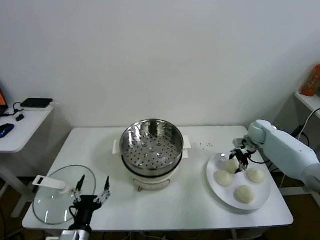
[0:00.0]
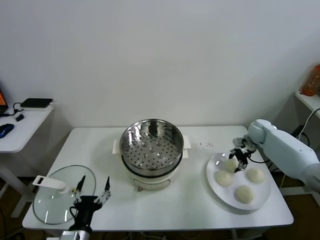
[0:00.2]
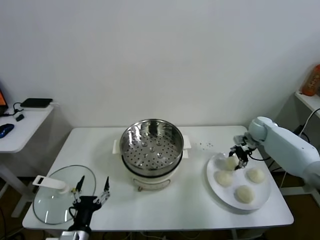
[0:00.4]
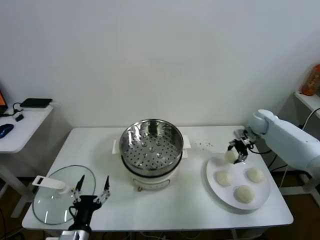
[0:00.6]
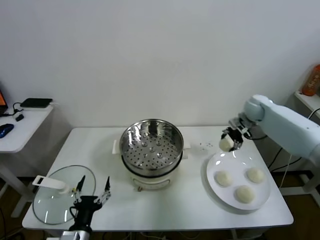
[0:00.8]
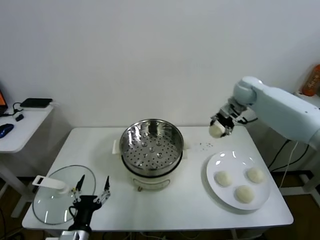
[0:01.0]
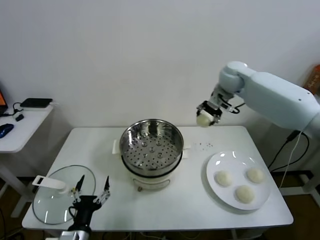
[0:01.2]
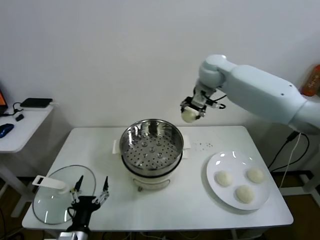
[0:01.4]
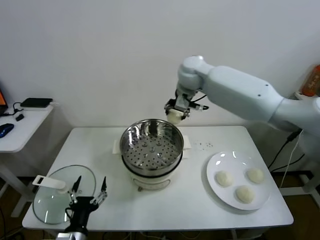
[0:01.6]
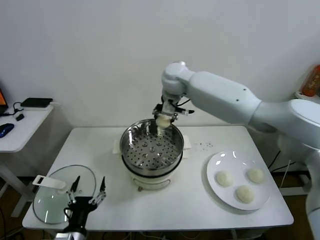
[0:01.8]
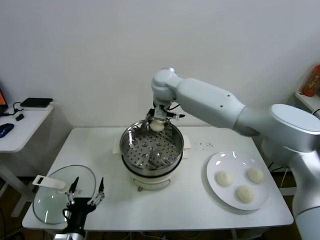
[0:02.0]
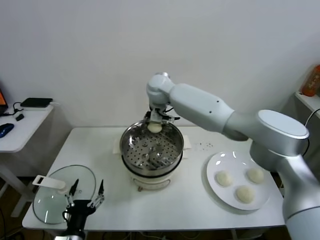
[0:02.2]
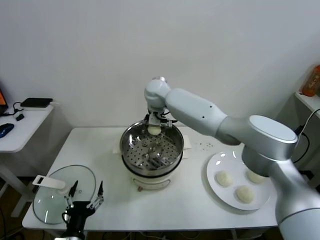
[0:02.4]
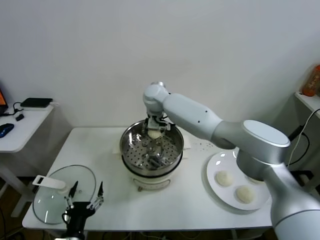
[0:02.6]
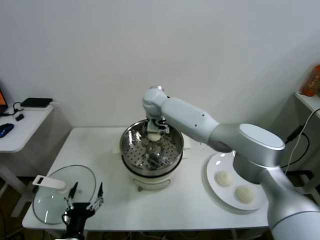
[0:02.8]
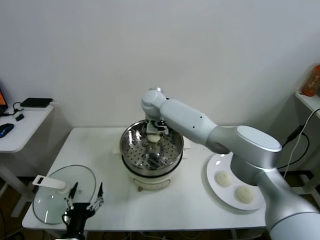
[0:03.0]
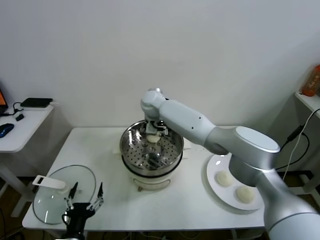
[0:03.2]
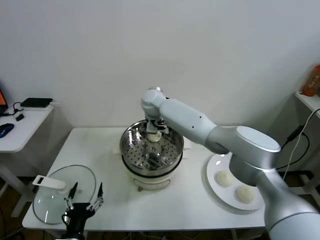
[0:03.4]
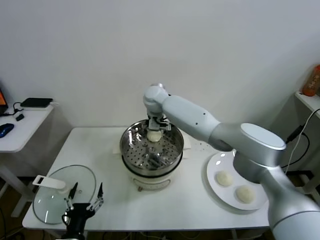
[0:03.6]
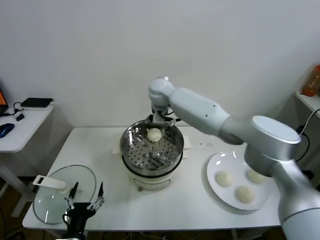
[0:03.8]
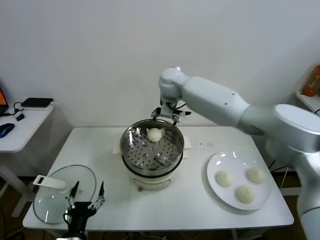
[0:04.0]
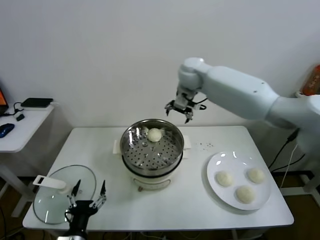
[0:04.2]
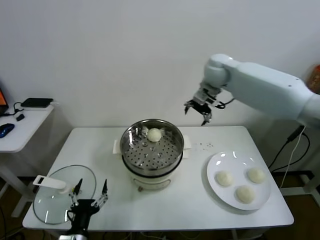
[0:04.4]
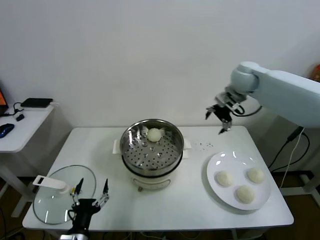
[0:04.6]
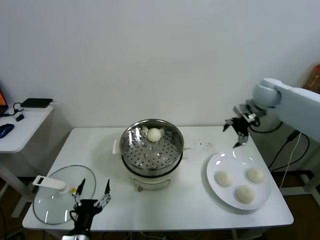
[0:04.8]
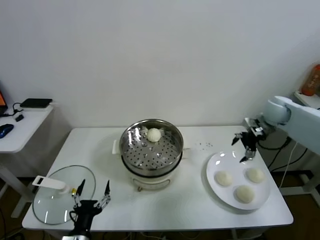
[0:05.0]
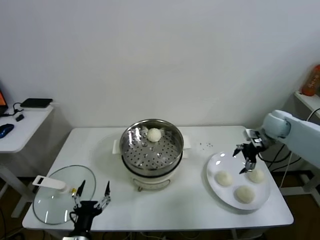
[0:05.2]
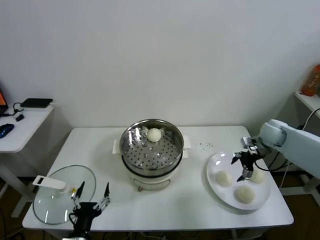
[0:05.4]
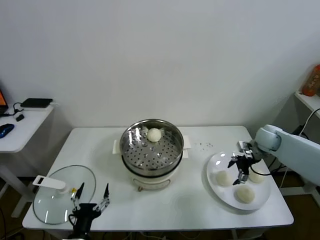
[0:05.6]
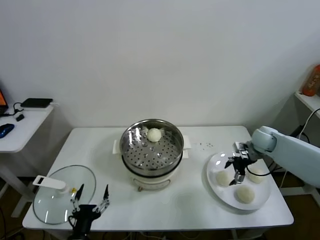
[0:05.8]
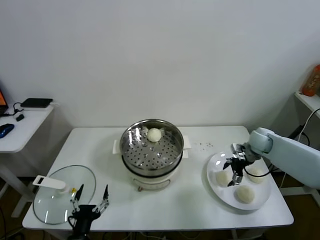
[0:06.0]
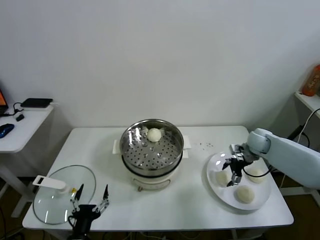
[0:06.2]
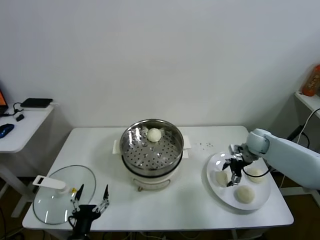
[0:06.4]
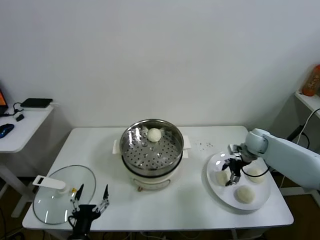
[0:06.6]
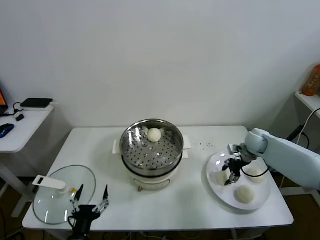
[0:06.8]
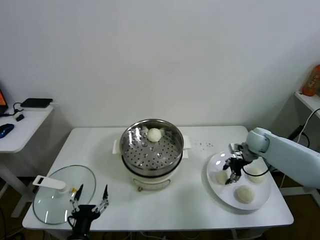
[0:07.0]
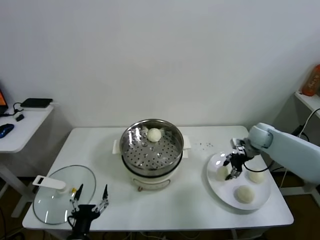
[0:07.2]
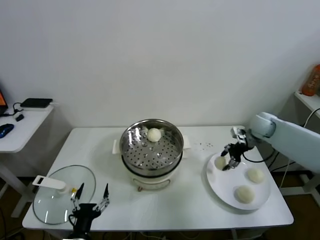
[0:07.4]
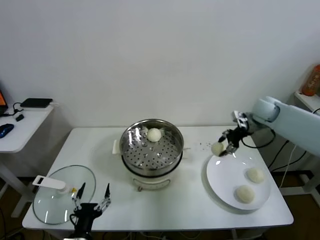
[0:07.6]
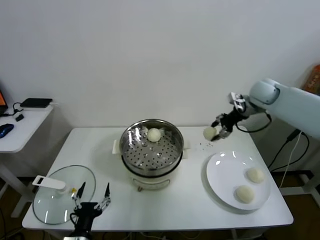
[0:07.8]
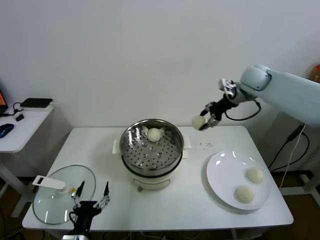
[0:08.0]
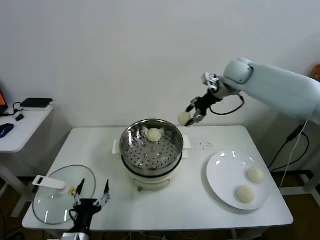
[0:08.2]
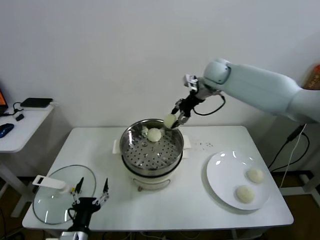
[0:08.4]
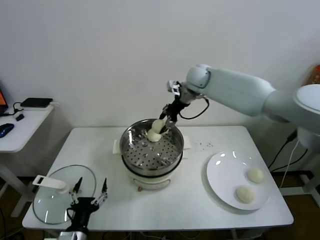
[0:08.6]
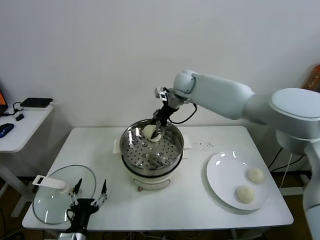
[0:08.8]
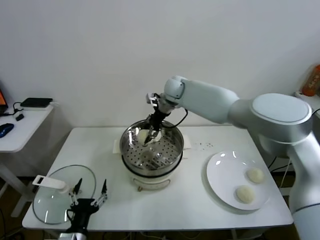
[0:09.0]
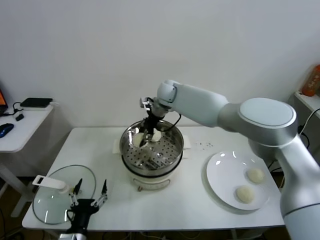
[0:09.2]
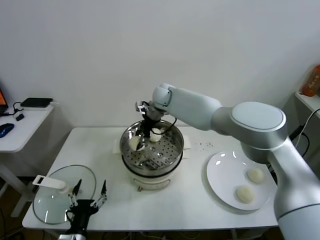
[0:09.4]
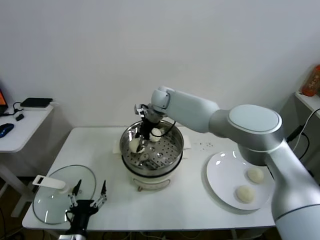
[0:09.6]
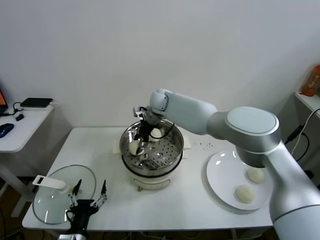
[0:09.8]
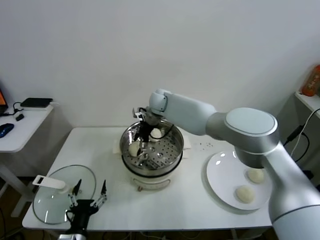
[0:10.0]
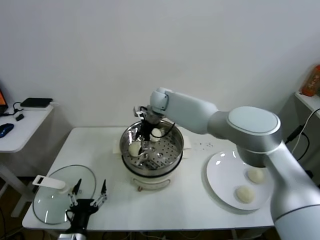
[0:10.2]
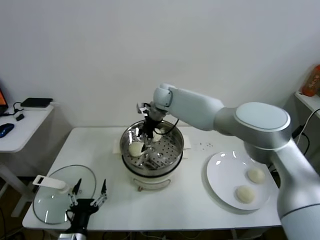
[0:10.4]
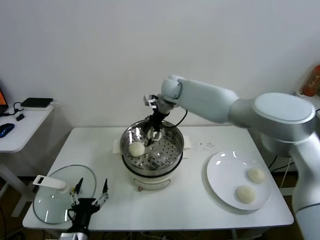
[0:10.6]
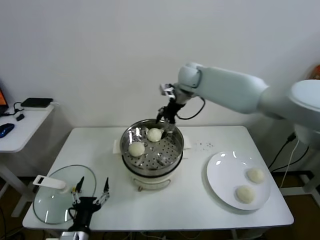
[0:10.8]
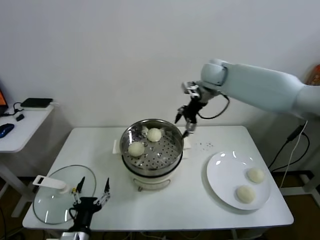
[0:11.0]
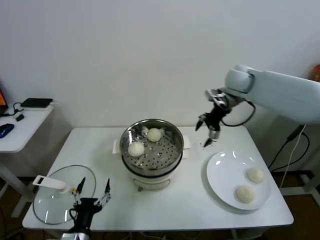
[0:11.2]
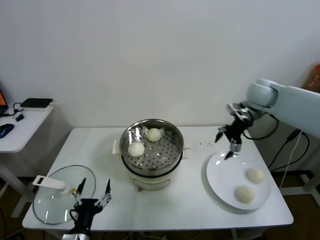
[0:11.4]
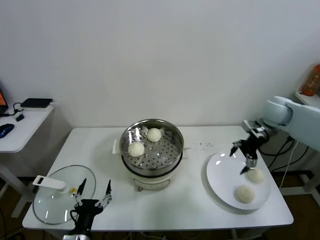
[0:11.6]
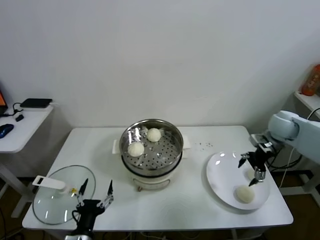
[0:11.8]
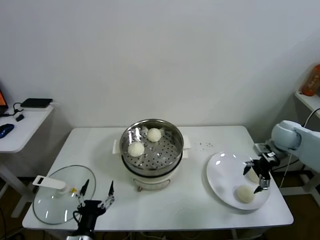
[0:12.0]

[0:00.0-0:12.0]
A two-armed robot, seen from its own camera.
Task of the whole recording: take steamed baozi put them in steamer.
Step, 0.2 to 3.4 s: Place the baozi on the steamer with right gripper.
Step, 3.6 to 7.0 s: Grasp the baozi in the plate with right gripper.
Step, 7.2 to 10.2 s: Place the baozi on the steamer with right gripper.
0.0 to 1.6 s: The right gripper goes about 40 cm to the left and upward.
1.6 to 3.0 s: The right gripper is displaced downward and to the left by approximately 15 cm, and opens.
3.0 to 4.4 s: The right gripper is displaced to the right and upward by roughly 30 cm.
4.4 to 6.0 s: The right gripper heads downward and to the right, covering about 30 cm.
6.0 to 7.6 s: The right gripper travels upward by approximately 15 cm, and closes its fingers.
7.6 to 9.0 s: The right gripper moves to the left, approximately 30 cm.
9.0 to 10.4 s: The right gripper opens.
10.4 to 12.0 s: The right gripper heads to the right, covering approximately 40 cm.

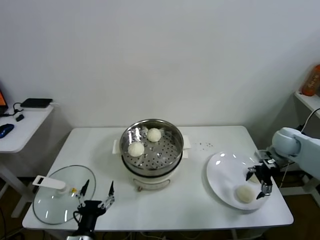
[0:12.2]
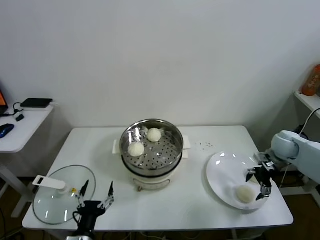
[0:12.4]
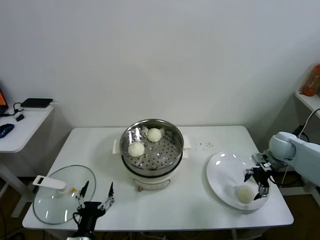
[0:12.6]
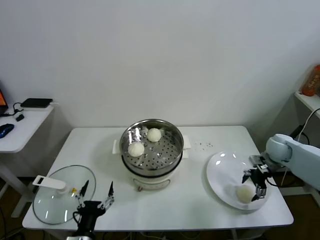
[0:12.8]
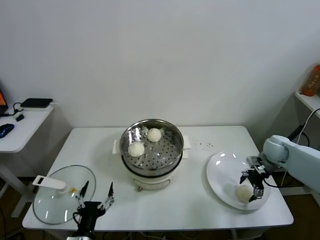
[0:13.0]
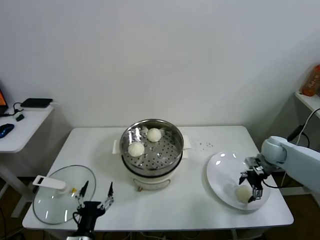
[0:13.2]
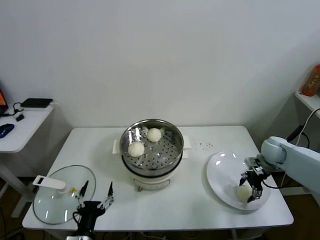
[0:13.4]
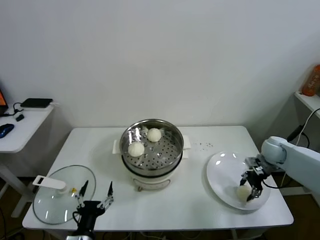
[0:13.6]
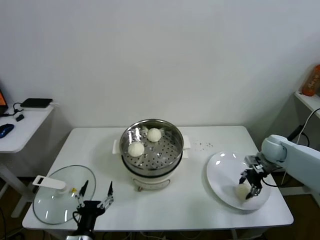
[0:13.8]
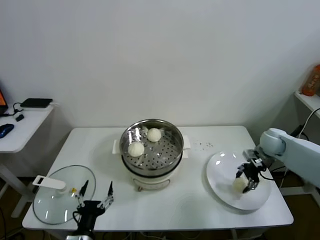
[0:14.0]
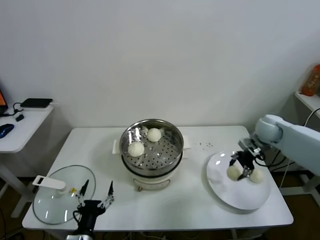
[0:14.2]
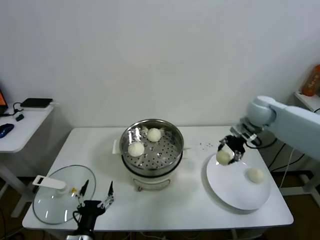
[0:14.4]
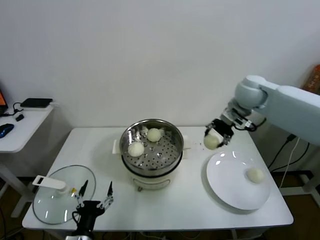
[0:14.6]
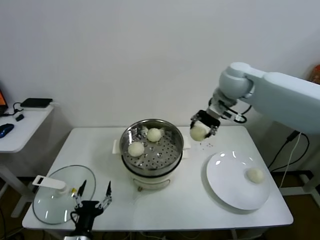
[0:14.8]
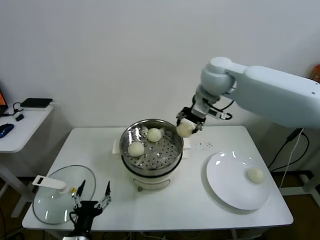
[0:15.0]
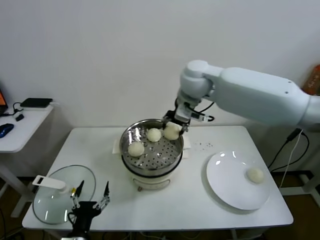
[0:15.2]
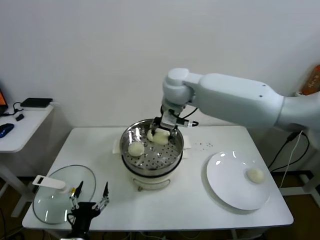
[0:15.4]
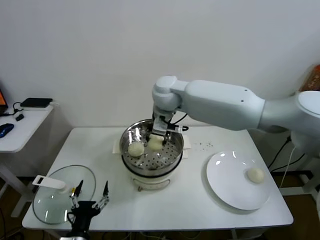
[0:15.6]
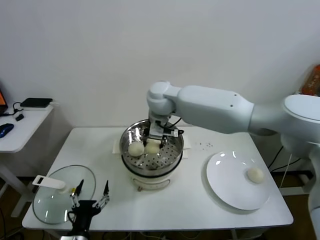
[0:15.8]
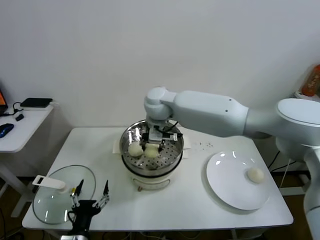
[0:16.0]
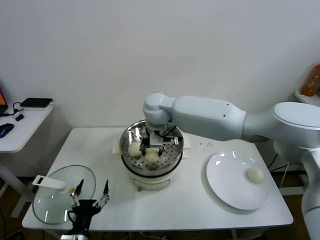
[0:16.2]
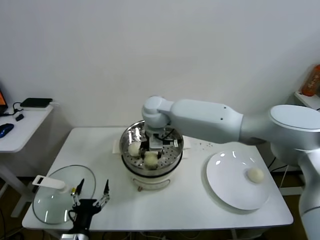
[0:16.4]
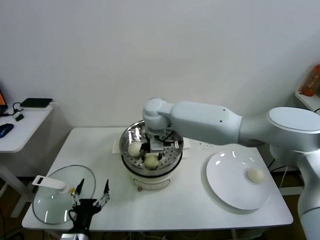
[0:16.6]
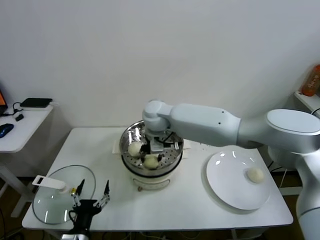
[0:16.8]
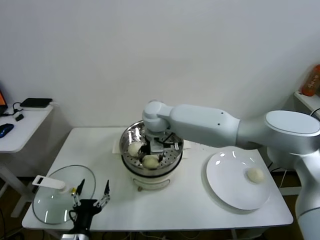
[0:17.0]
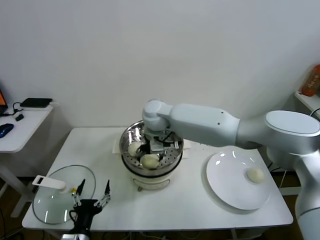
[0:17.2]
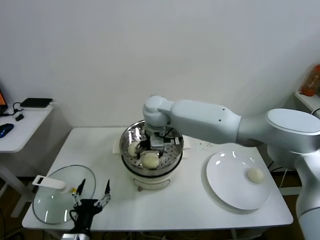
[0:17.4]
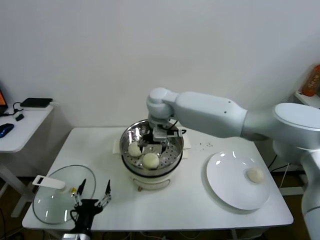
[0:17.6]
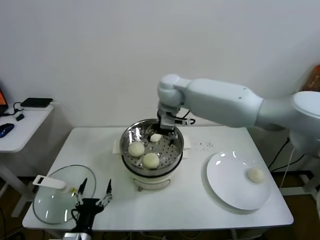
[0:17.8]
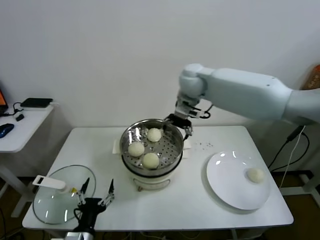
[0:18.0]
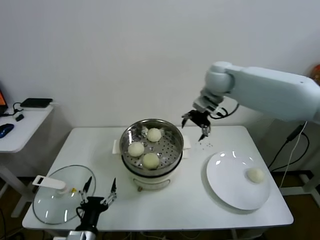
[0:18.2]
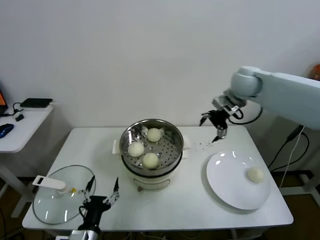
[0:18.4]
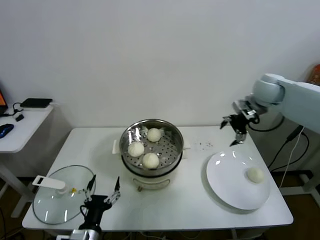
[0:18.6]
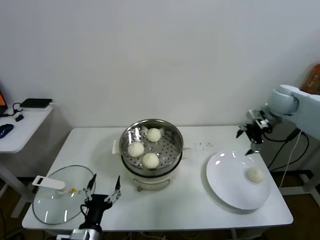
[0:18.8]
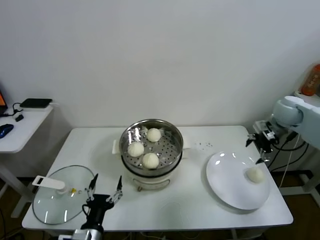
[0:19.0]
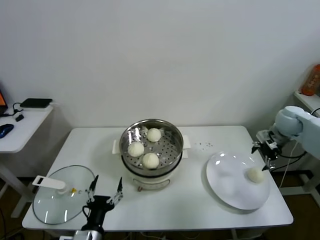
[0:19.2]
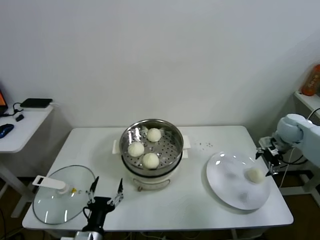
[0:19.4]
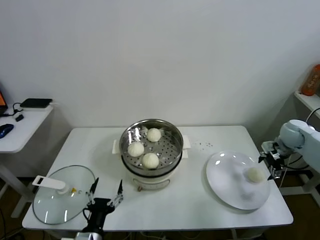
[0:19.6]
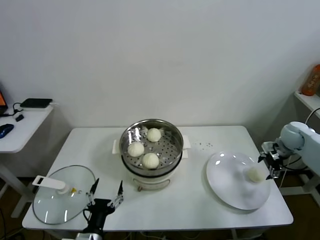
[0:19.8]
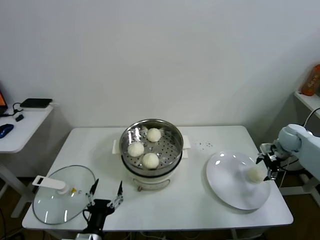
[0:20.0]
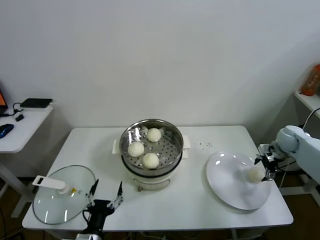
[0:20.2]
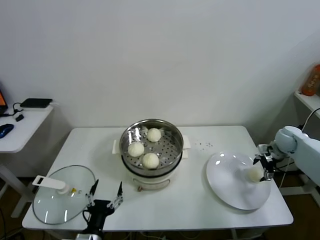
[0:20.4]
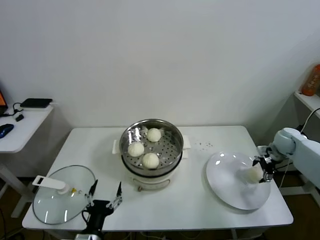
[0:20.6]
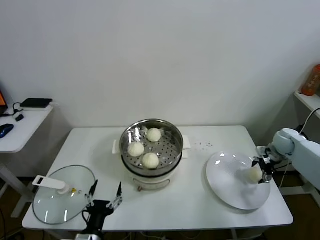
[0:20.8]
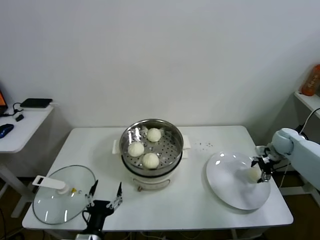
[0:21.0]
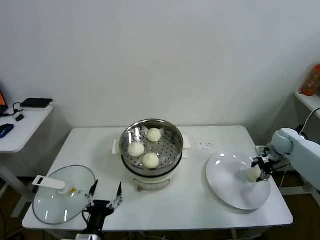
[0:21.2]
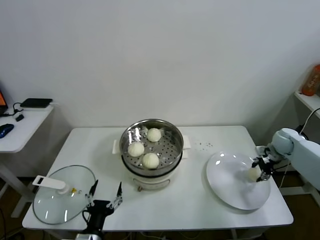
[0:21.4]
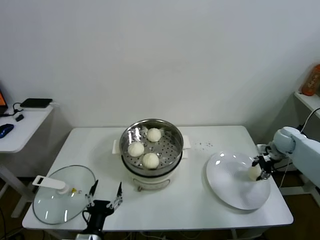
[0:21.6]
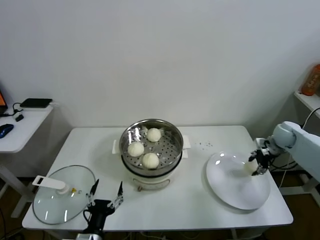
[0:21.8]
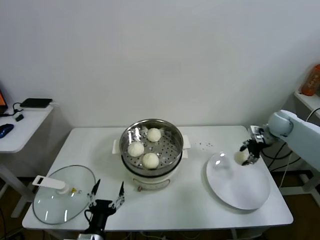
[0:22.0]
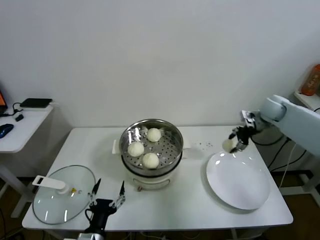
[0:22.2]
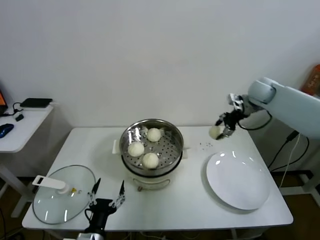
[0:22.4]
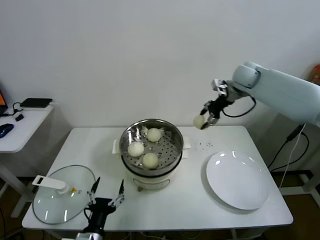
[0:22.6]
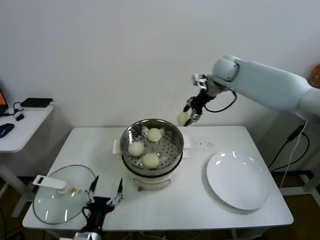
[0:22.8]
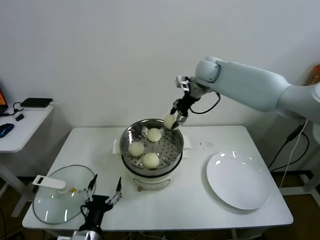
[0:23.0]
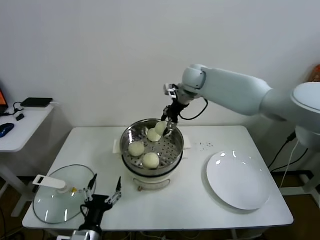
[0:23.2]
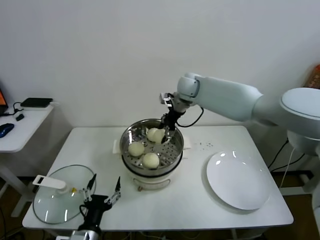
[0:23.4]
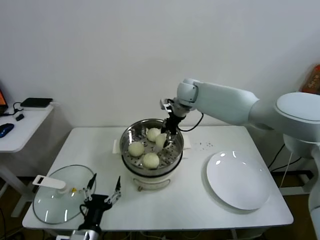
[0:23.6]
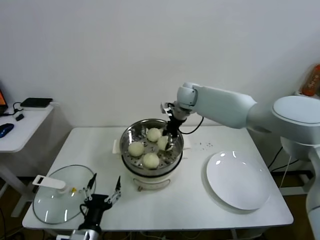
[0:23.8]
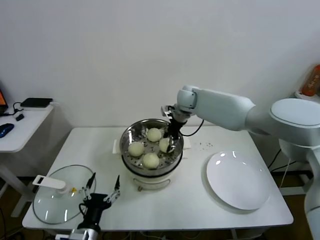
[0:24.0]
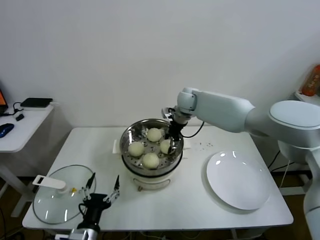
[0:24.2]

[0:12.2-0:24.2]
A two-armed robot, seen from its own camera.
Task of the whole recording: take steamed baozi put them in steamer.
Step, 14.0 to 17.4 s: Place the baozi on the steamer with right gripper.
Step, 17.6 to 21.4 s: Grasp the baozi in the plate with right gripper.
12.2 to 13.8 s: The right gripper closes.
13.8 to 15.2 s: The right gripper heads to the left and upward, covering approximately 40 cm.
15.2 to 16.6 s: The right gripper heads downward and to the left, covering roughly 15 cm.
16.6 to 18.2 s: The right gripper is displaced to the right and upward by about 25 cm, and opens up.
18.2 to 19.8 s: The right gripper is displaced to the right and downward by some 35 cm.
19.8 to 21.2 s: The right gripper closes up.
21.2 to 22.6 s: The right gripper shifts some 30 cm upward, to the left and forward.
22.6 to 24.2 s: The right gripper is displaced to the left and downward by approximately 20 cm.
